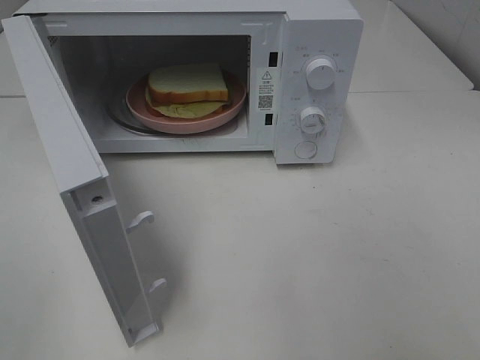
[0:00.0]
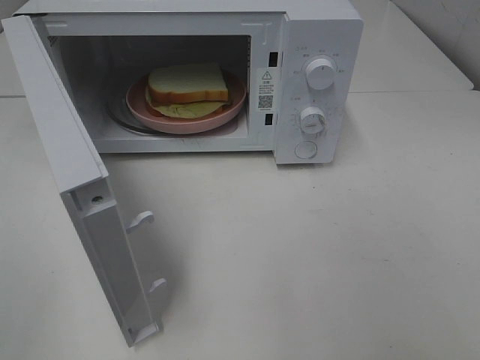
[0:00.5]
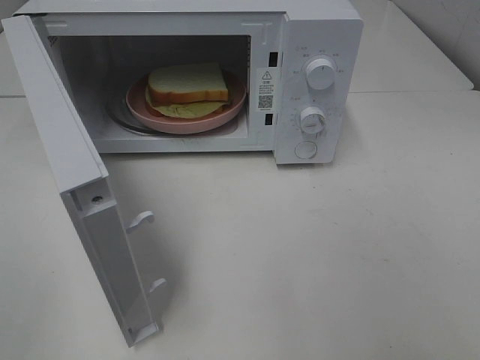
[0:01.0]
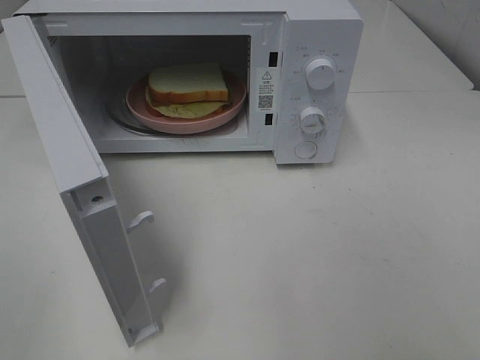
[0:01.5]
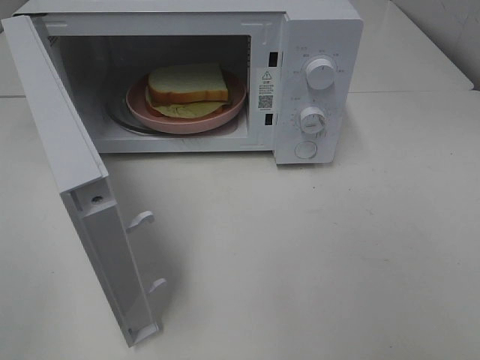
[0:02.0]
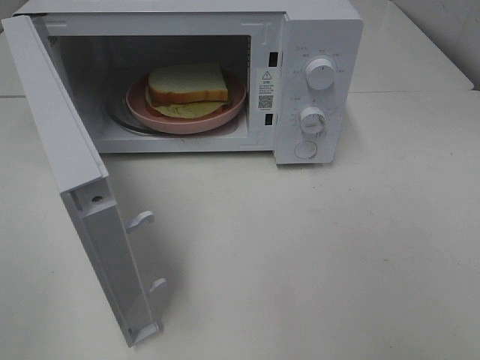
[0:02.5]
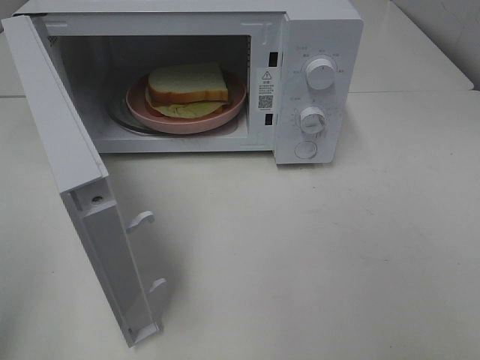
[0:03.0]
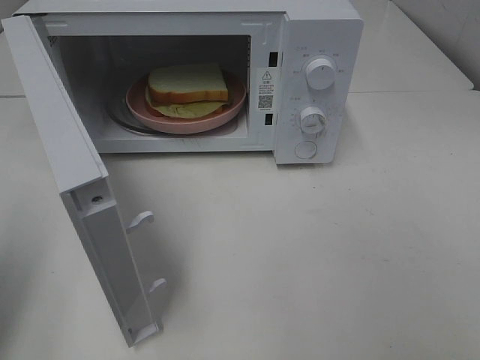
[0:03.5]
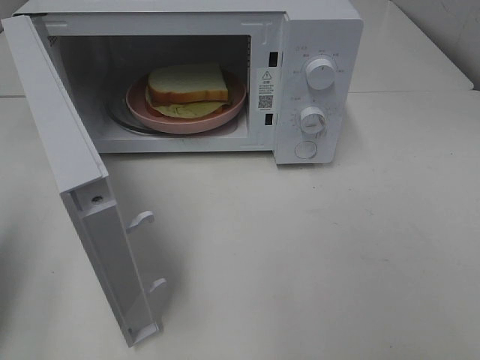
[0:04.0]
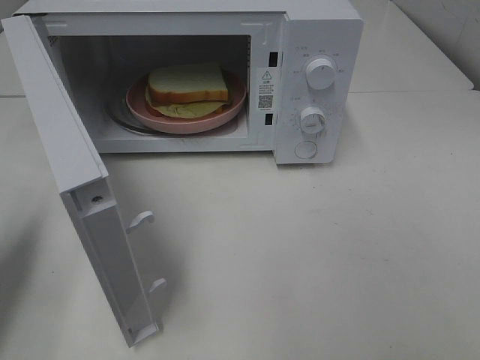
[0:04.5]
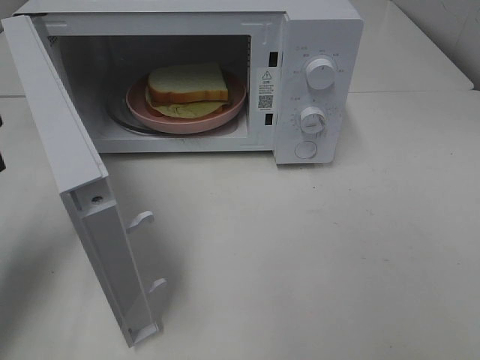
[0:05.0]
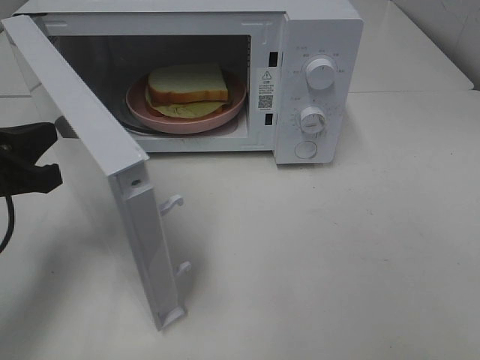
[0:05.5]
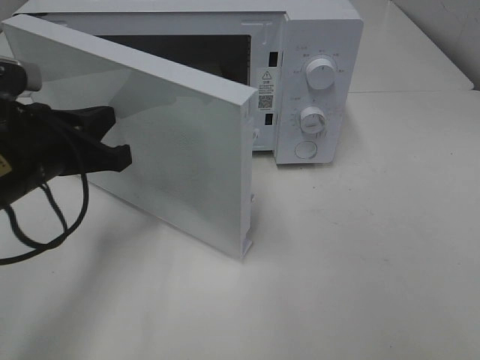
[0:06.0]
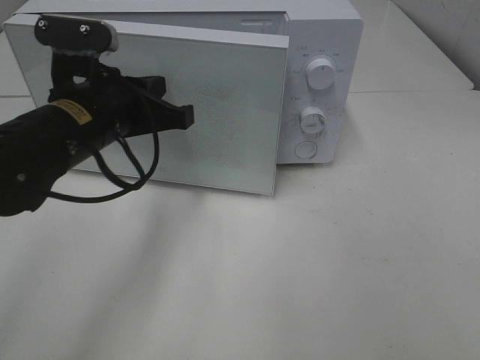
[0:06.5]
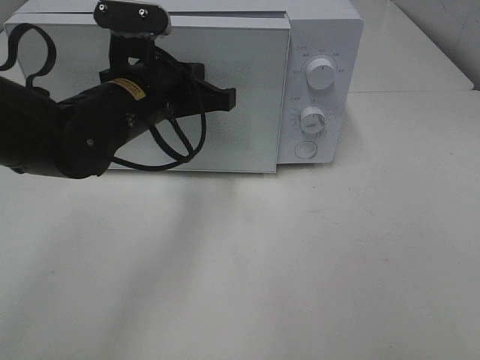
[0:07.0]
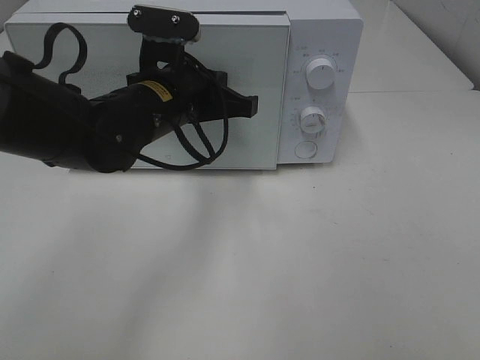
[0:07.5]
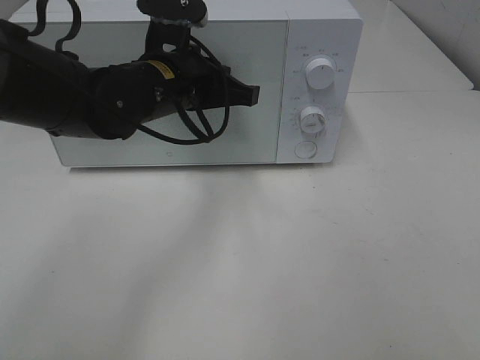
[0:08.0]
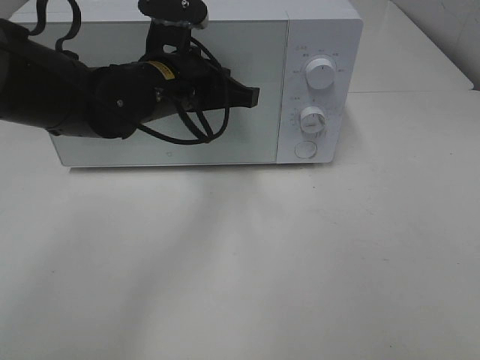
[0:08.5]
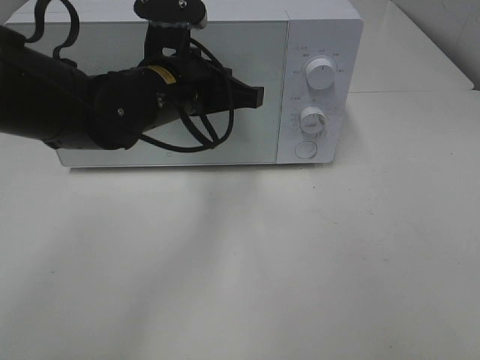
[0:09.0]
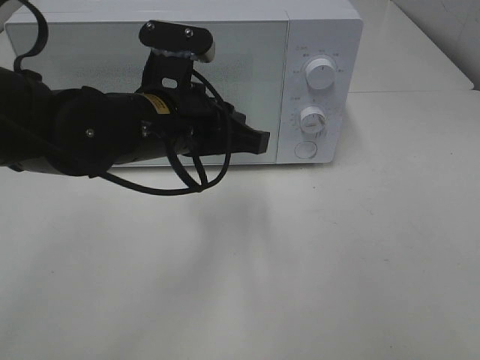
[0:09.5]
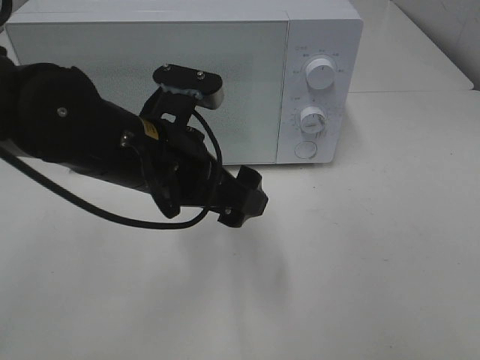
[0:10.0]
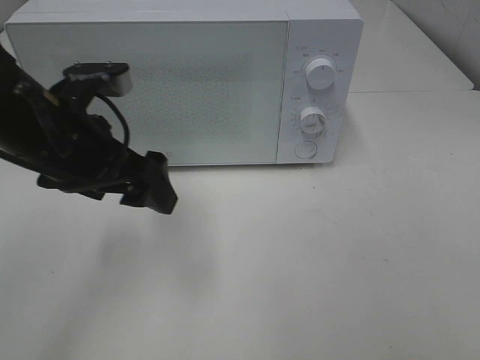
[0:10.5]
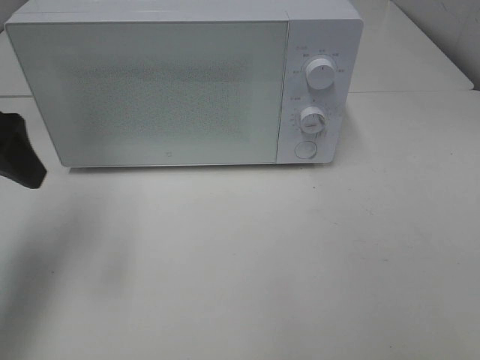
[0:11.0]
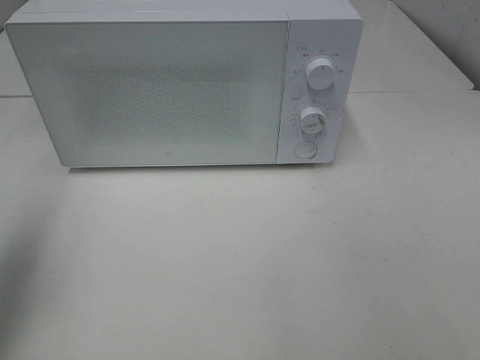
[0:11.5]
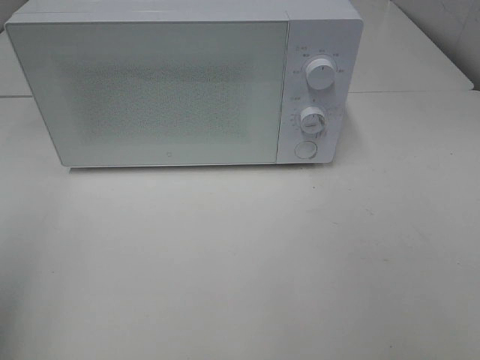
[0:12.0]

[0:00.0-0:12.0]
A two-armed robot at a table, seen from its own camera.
Task of the whole recording: Heat Sandwich.
Step, 0:00.0 to 0:09.0: Left hand: close the microwave door.
0:00.0 to 0:02.0: Both grippers stay put.
0:02.0 to 0:04.0: The left gripper goes about 15 cm forward, and closes.
0:04.0 to 0:06.0: The left gripper moves to the right, forward and downward, roughly 20 cm.
0:06.0 to 0:08.0: The left gripper heads to the right and forward, covering about 15 cm.
0:08.0 to 0:10.0: The left gripper shifts approximately 10 cm backward, and opens up.
0:10.0 to 0:12.0: The left gripper moves to the left and backward, roughly 30 cm.

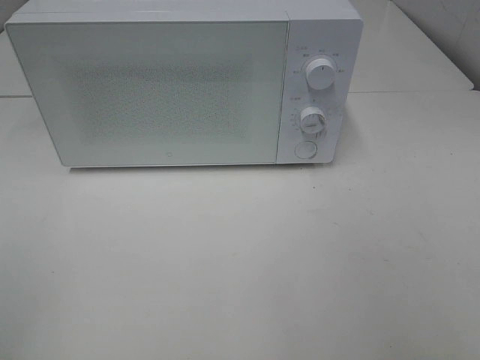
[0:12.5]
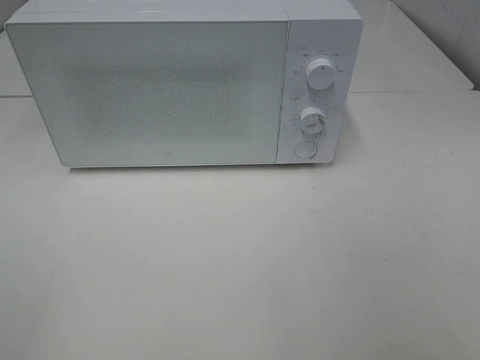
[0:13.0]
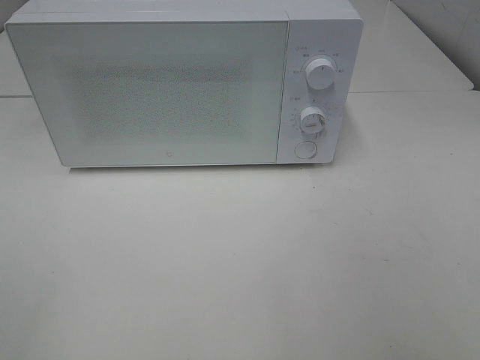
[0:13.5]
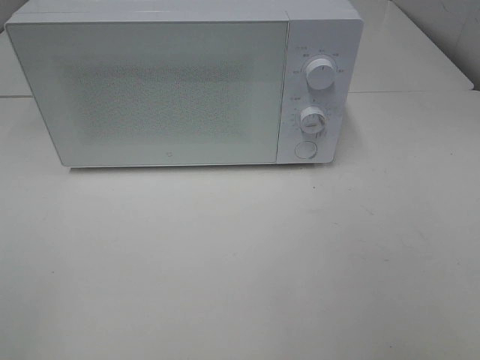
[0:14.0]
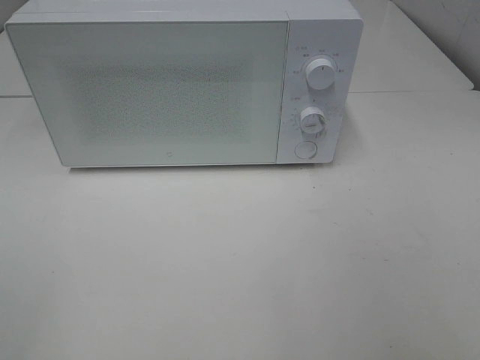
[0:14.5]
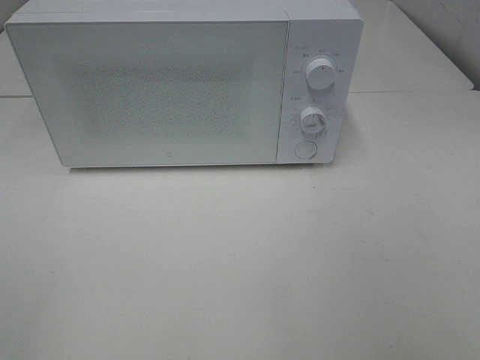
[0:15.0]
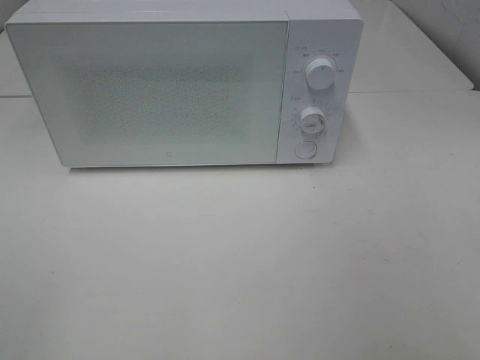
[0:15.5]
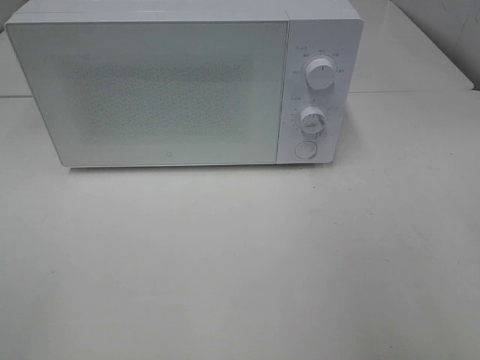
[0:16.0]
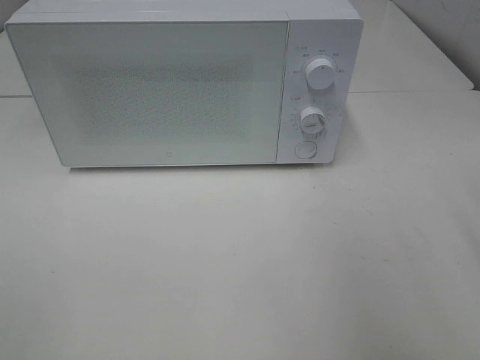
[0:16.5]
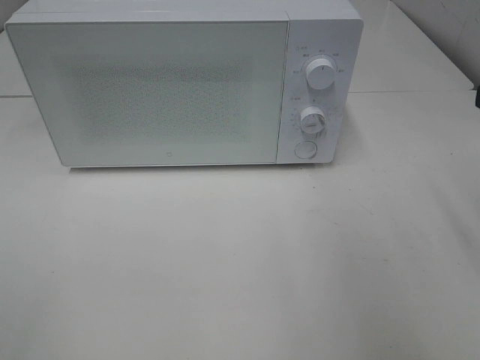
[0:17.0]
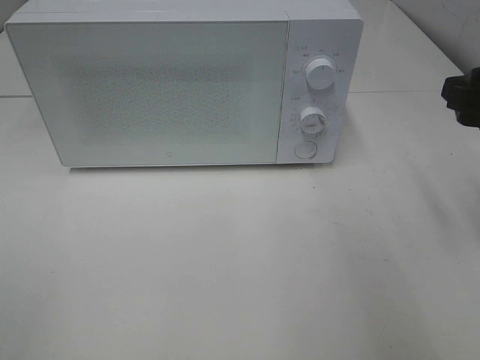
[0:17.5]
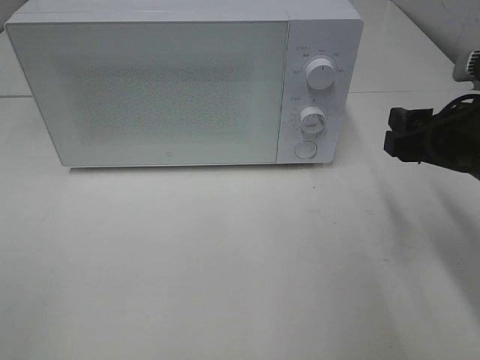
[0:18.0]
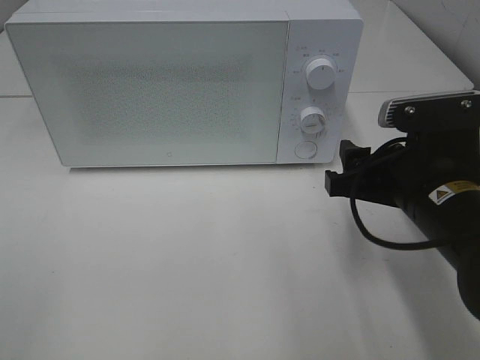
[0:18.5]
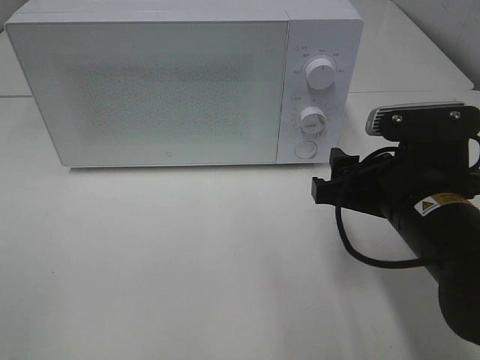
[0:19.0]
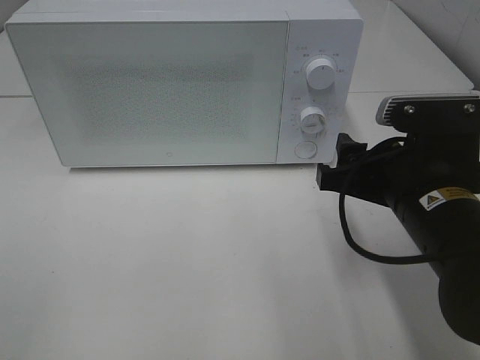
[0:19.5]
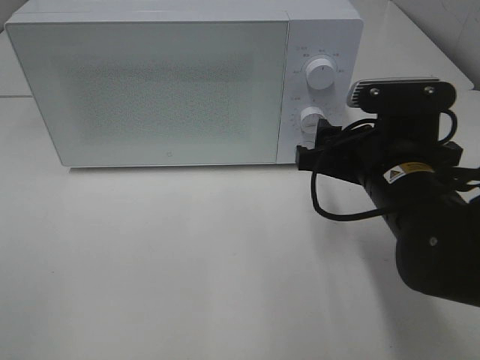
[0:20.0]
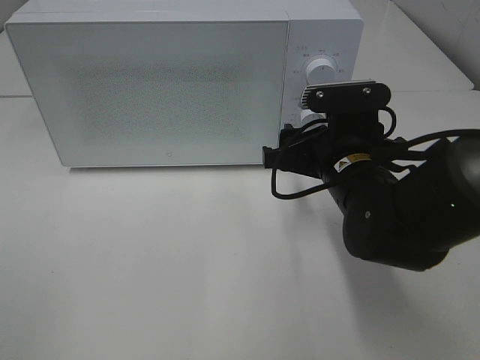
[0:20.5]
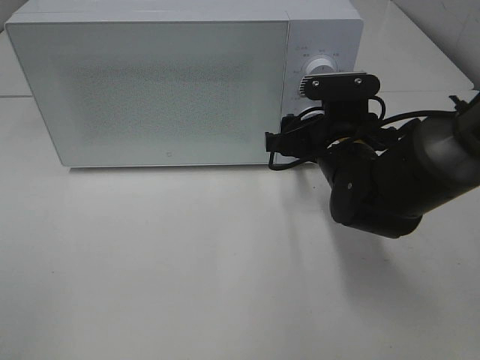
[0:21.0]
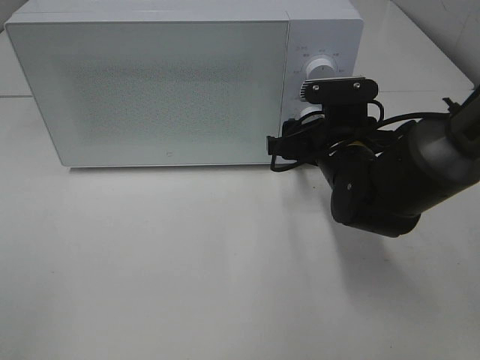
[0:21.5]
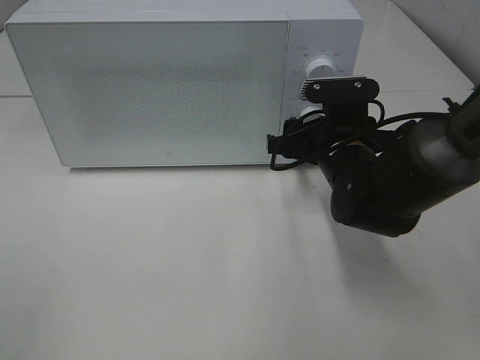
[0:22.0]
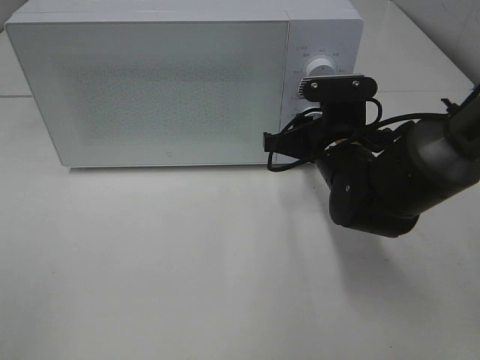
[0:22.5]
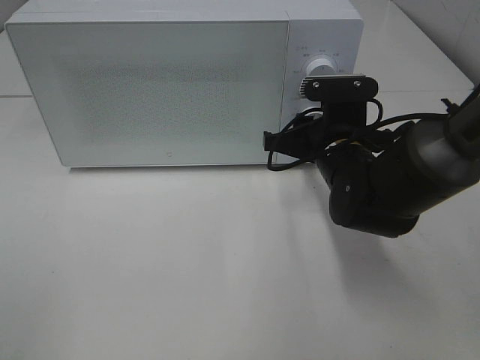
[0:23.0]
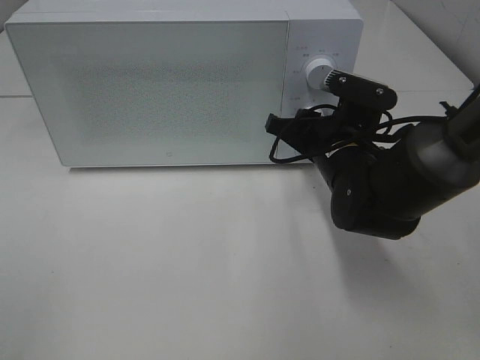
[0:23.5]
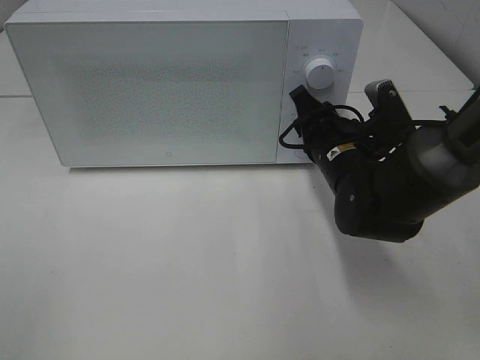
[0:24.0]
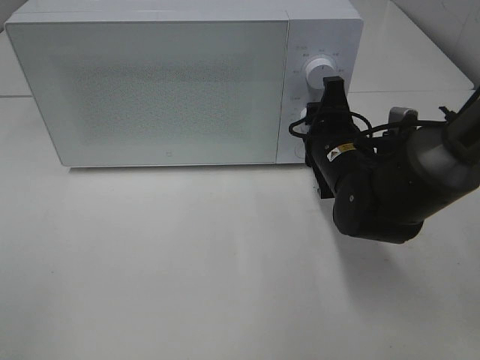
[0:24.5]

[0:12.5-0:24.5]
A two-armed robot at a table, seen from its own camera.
Task of the whole recording: Heat Sandwich.
0:16.5 to 0:18.5: The right gripper goes about 20 cm downward, to the left and forward.
0:18.5 to 0:20.5: The right gripper is displaced forward and to the left by approximately 10 cm.
0:20.5 to 0:22.5: The right gripper closes.

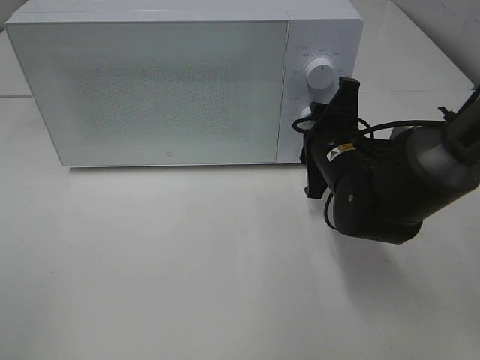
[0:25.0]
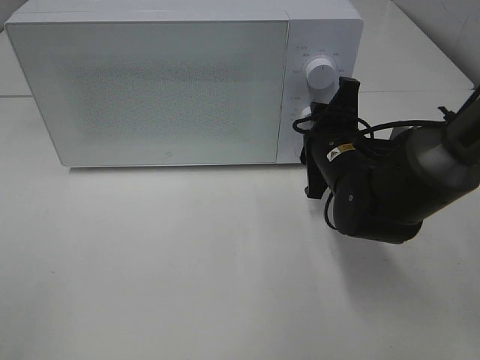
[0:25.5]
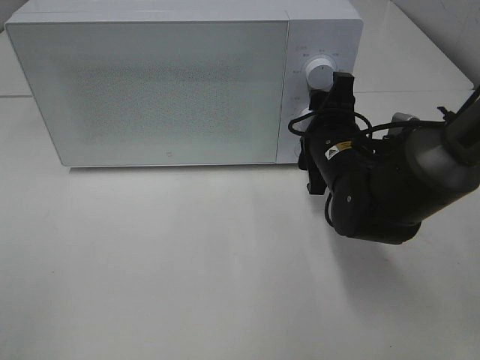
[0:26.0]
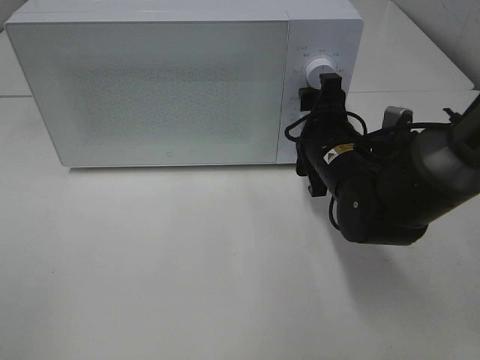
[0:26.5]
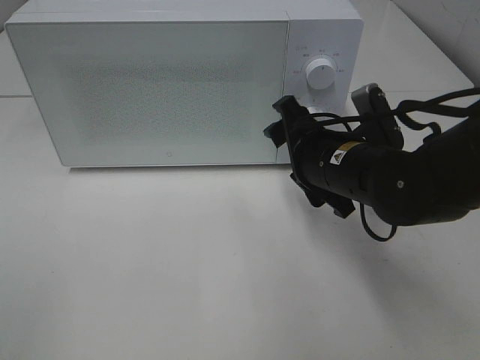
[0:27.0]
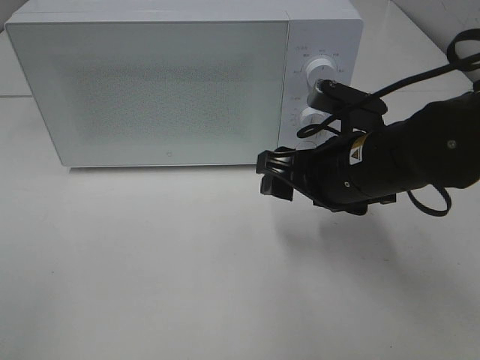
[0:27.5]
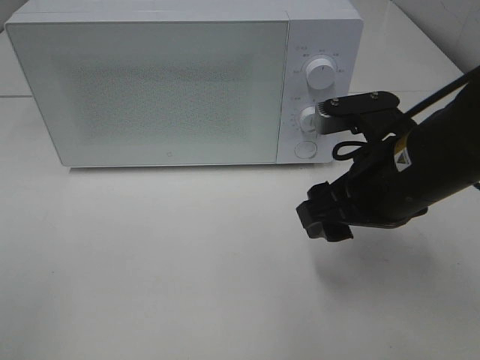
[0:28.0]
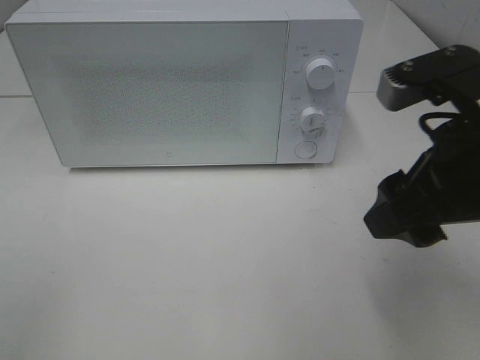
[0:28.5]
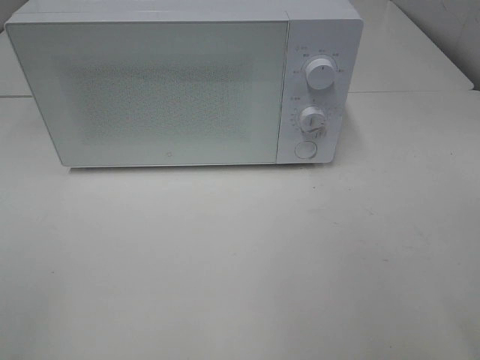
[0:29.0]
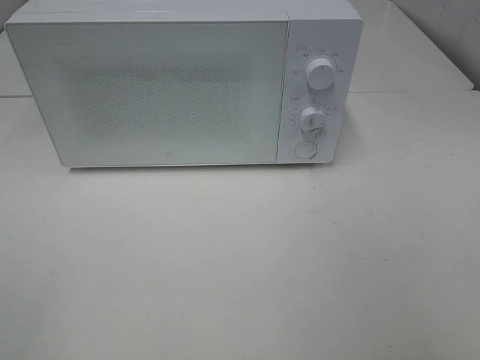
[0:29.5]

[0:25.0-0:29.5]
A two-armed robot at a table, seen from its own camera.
Task of the whole recording: Heat Sandwich.
0:25.0 to 0:27.0: The right gripper opens.
0:27.0 to 0:29.5: The right gripper travels backward, to the right and upward by some 35 cm.
